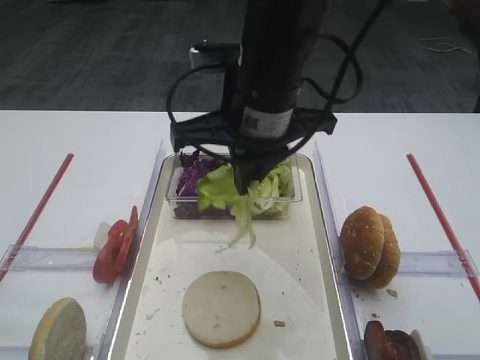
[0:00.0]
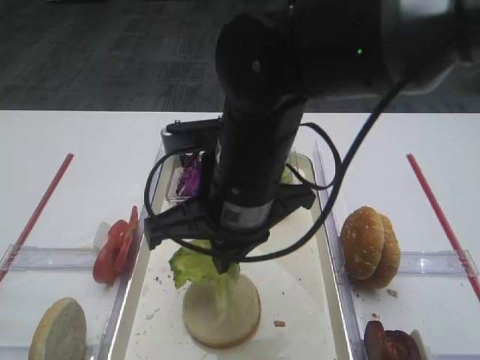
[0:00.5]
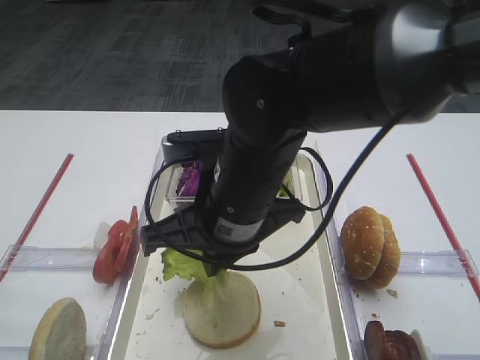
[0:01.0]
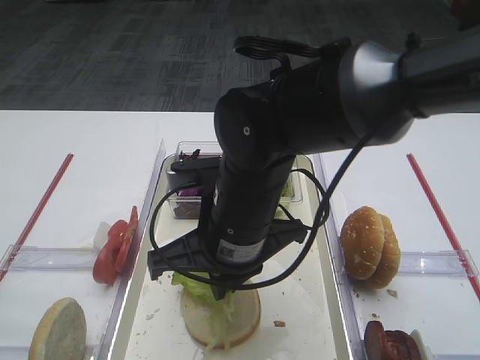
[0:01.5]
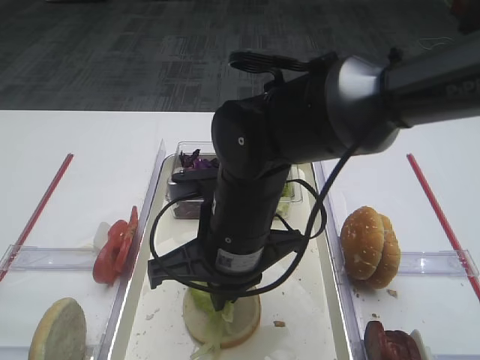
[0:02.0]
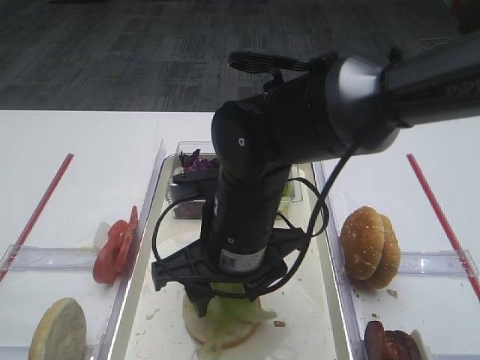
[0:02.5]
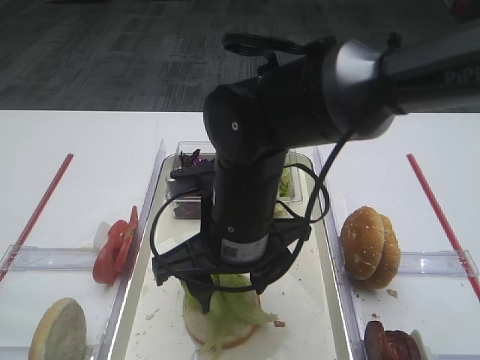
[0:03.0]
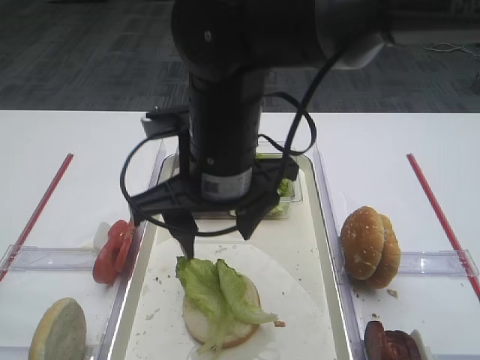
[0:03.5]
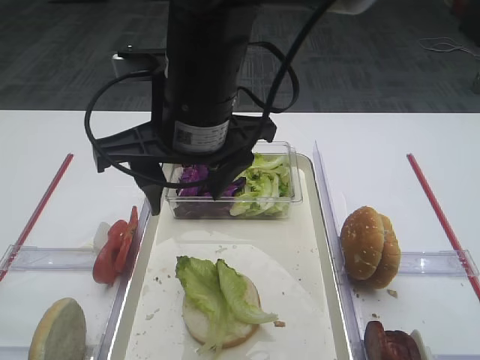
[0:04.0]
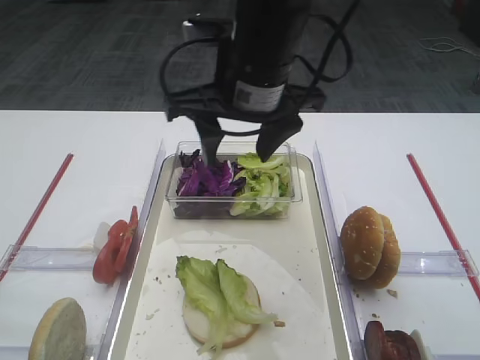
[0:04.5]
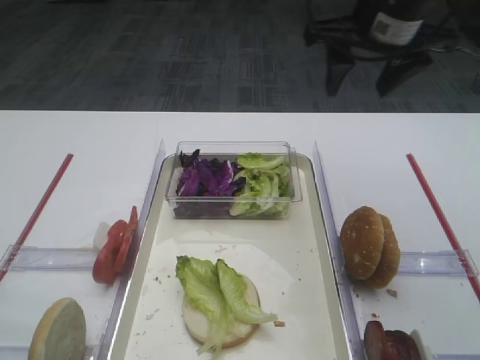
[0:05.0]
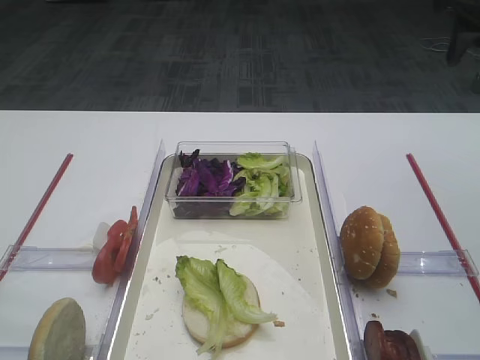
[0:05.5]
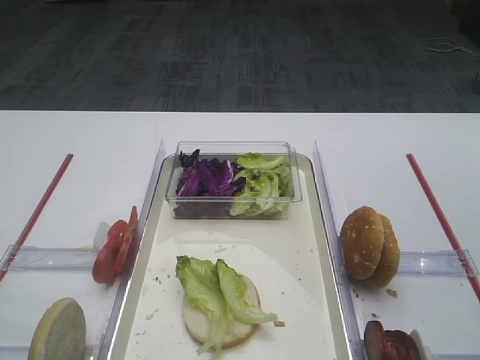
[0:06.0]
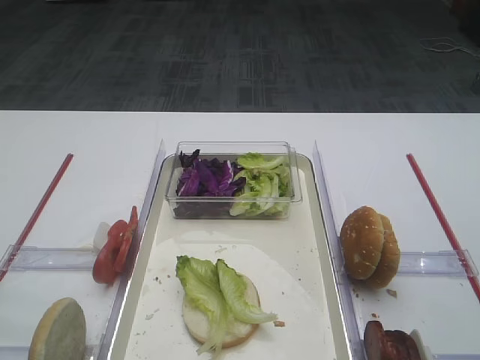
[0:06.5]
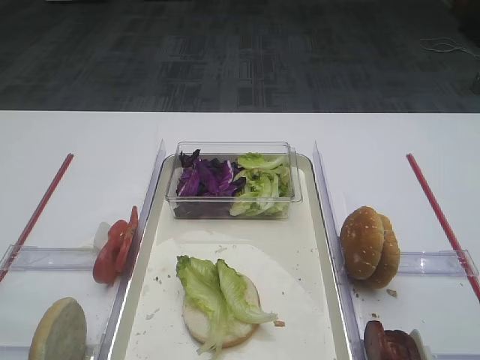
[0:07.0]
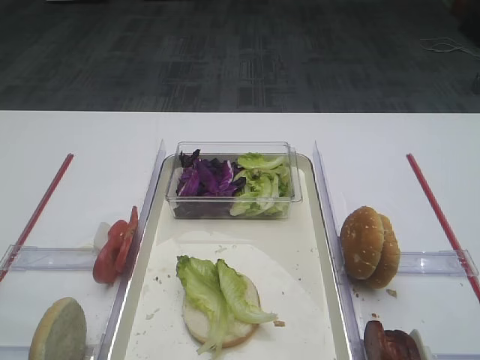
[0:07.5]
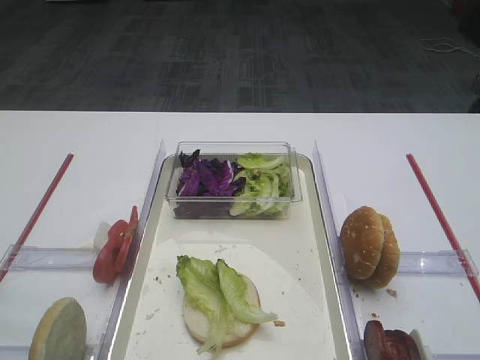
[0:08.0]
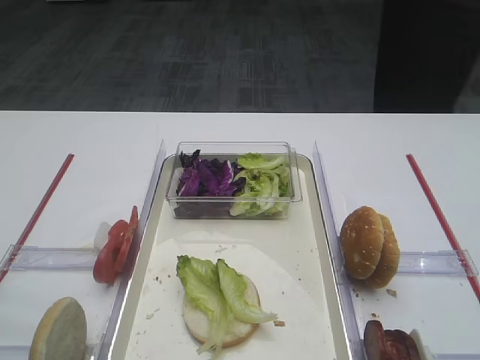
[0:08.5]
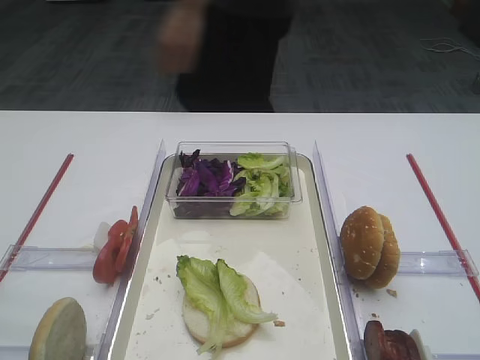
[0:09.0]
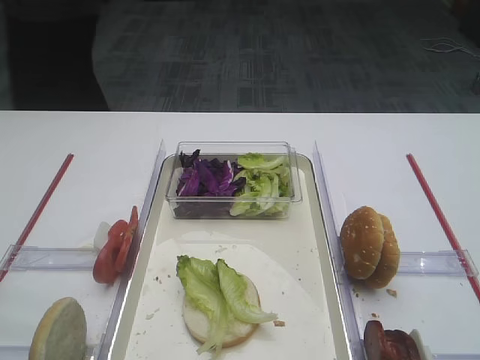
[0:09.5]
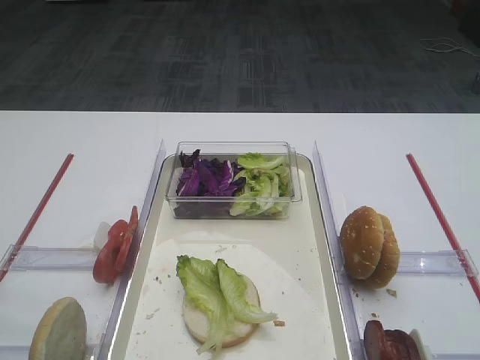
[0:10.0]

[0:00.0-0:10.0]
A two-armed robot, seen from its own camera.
Step, 0:00.0 to 0:03.5: Place the lettuce leaf on the bread slice with the right gripper.
0:00.0 to 0:02.0: The right gripper heads downward and backward, covering about 15 cm.
0:02.0 to 0:04.0: The right gripper is displaced upward by some 10 cm, and opens.
0:04.0 to 0:06.0: The right gripper is displaced to the right by roughly 35 cm.

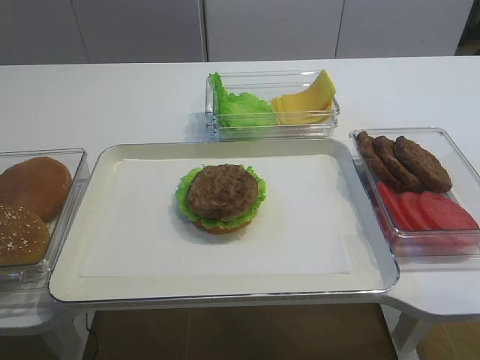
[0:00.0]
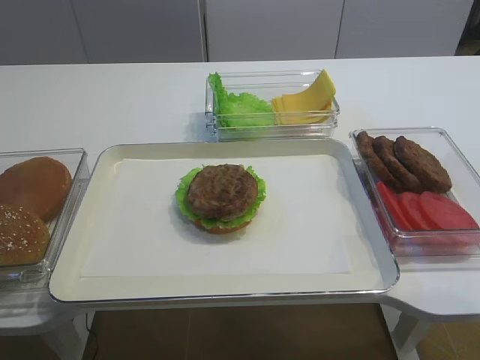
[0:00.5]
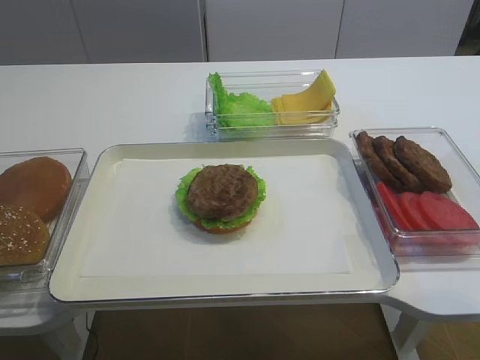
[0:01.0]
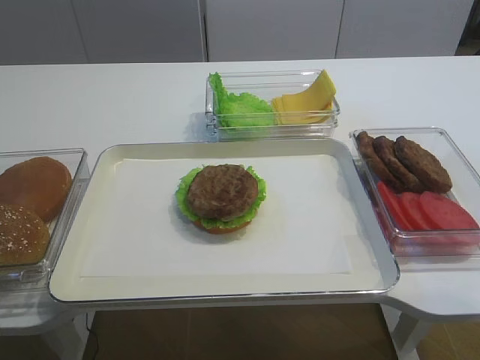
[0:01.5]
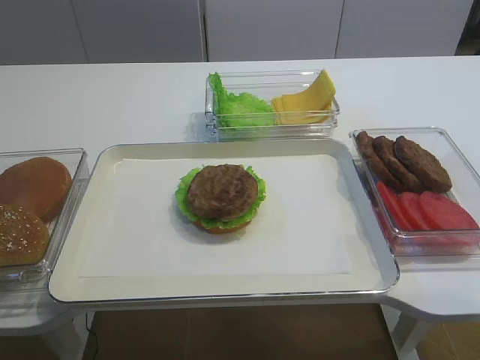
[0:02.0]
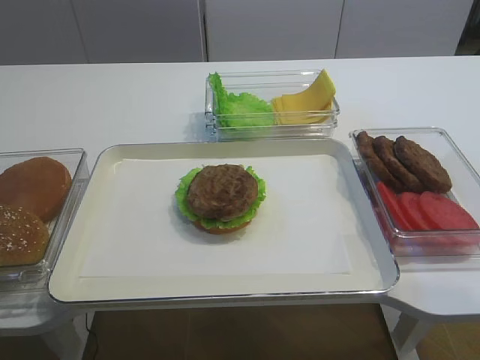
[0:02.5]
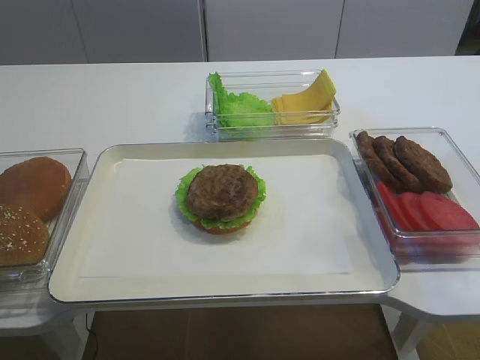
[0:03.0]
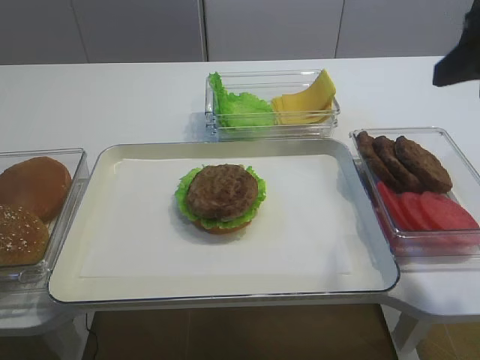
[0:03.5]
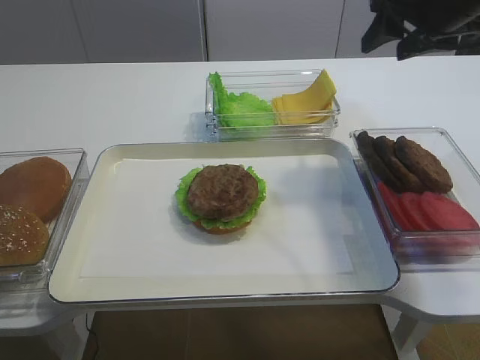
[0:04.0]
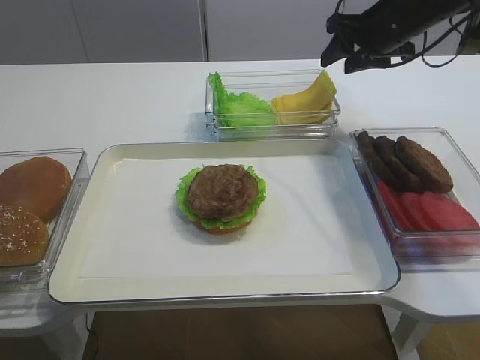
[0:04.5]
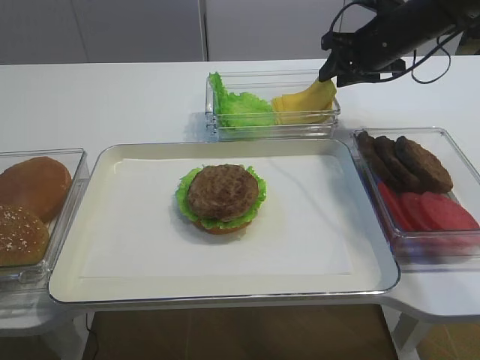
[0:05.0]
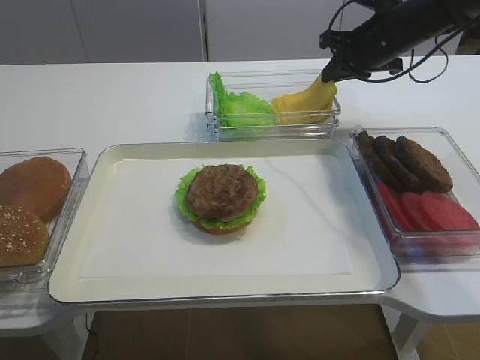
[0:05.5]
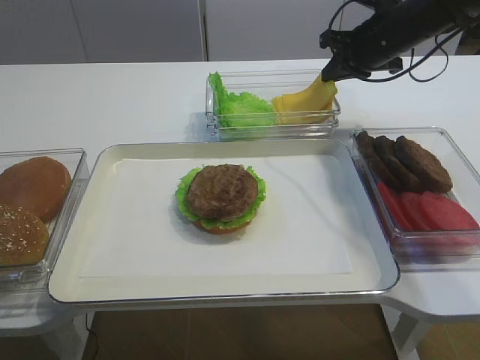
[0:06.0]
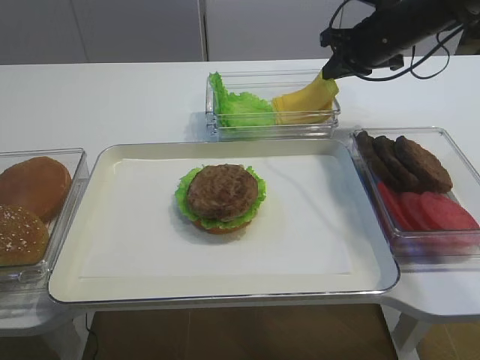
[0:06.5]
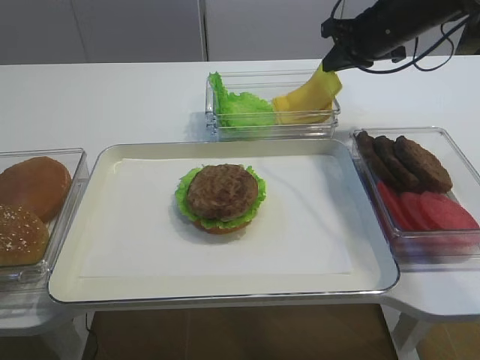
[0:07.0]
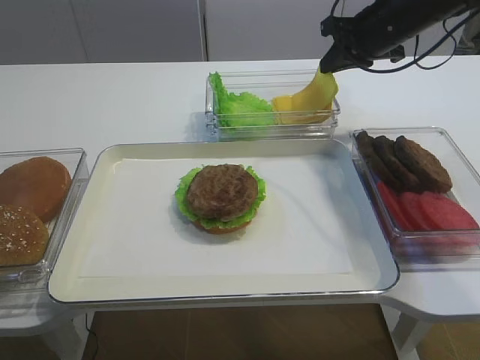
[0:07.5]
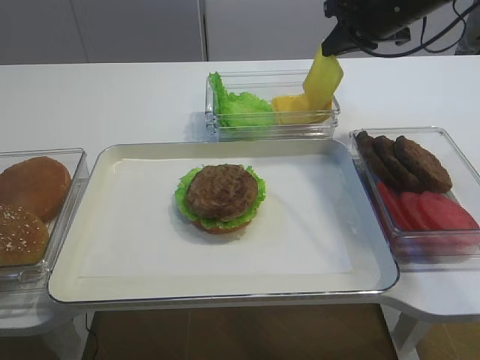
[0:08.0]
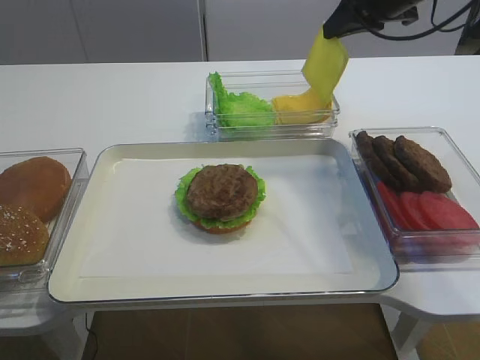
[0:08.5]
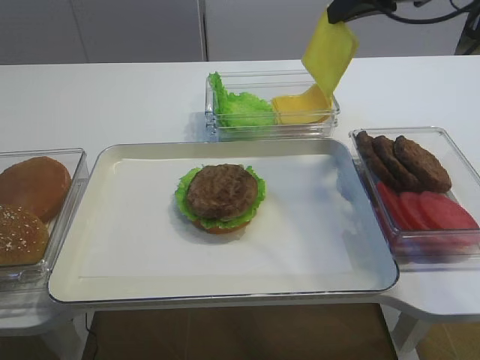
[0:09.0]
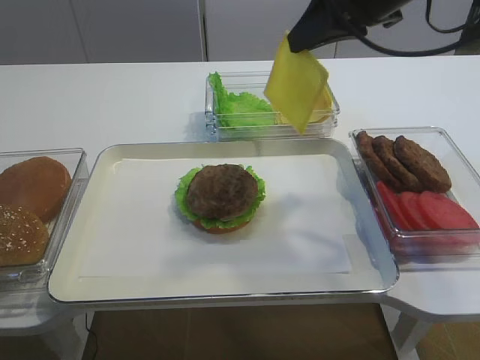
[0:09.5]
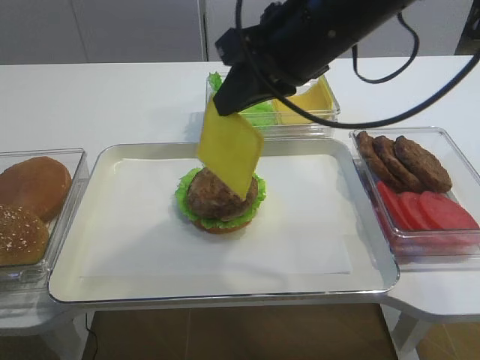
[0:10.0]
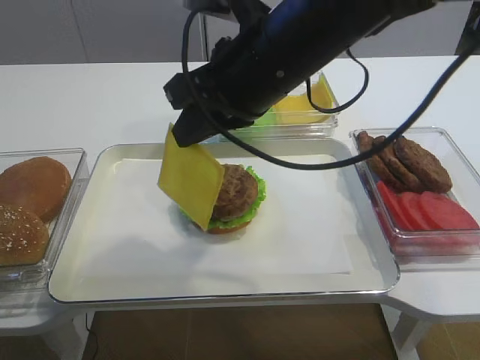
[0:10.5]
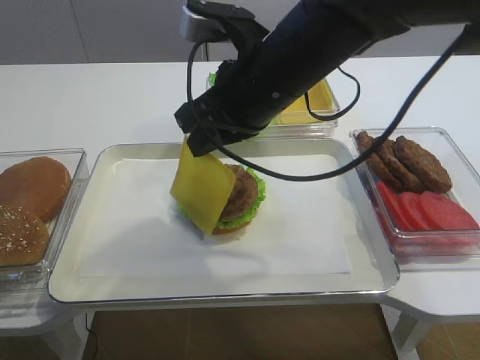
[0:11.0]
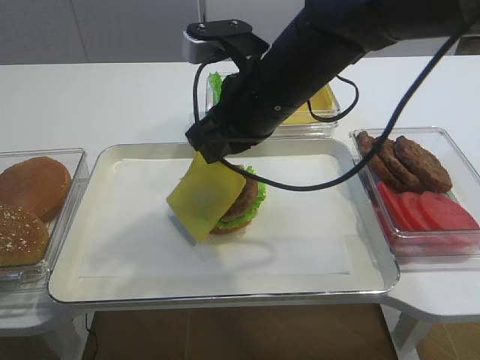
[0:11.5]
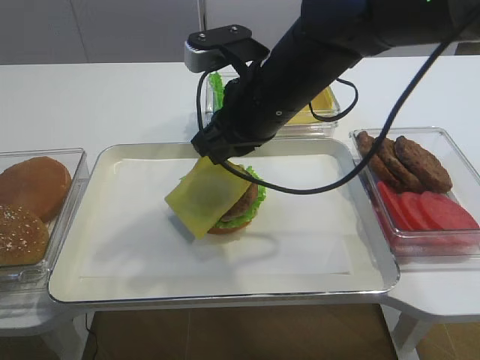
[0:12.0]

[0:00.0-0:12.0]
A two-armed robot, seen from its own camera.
Step, 0:00.0 to 0:08.0: Pick up the cheese slice with the right gripper.
0:02.0 to 0:04.0: The right gripper travels forward by approximately 40 cm.
0:04.0 to 0:06.0: The right gripper goes about 15 cm forward and downward, and closes up.
0:06.0 to 0:08.0: The right gripper shifts by some 5 cm.
0:08.0 to 0:10.0: The right gripper travels backward and to the left by some 20 cm.
0:10.0 to 0:12.0: The right gripper goes roughly 5 cm downward.

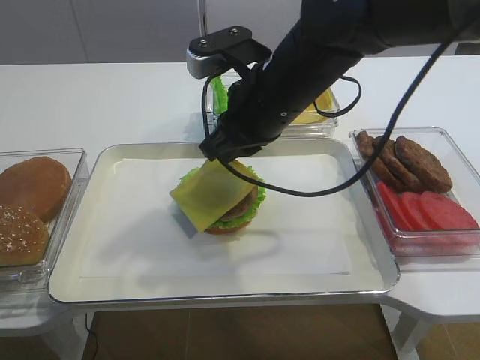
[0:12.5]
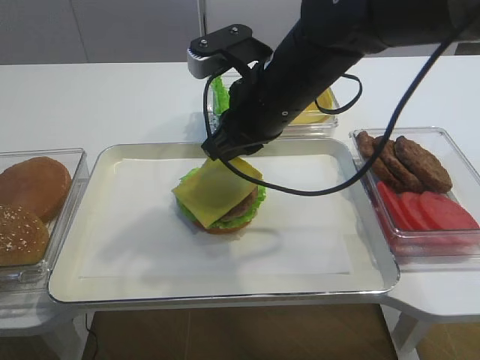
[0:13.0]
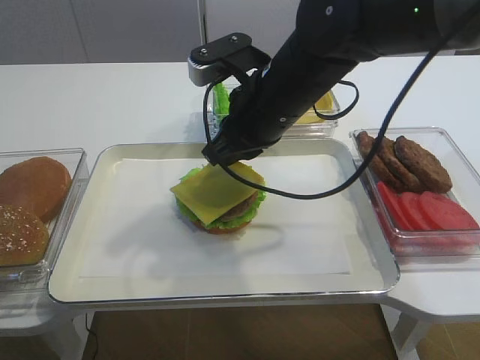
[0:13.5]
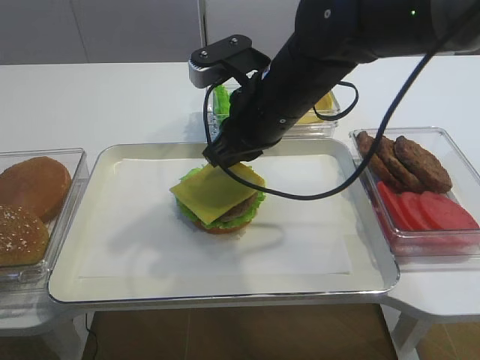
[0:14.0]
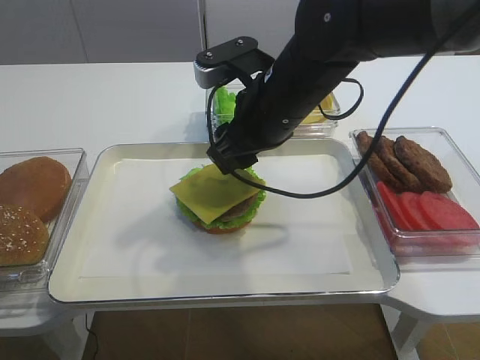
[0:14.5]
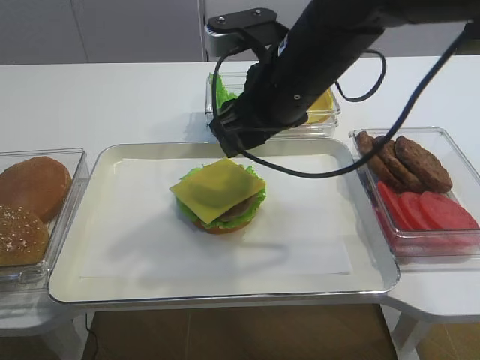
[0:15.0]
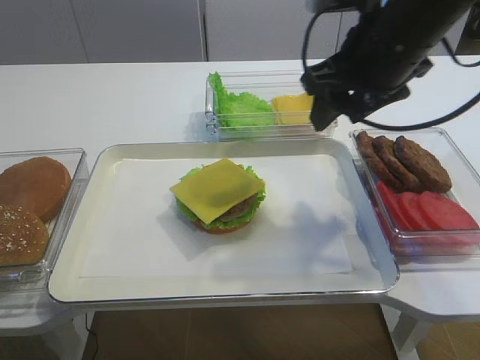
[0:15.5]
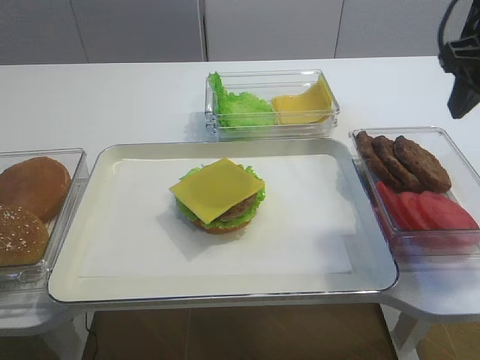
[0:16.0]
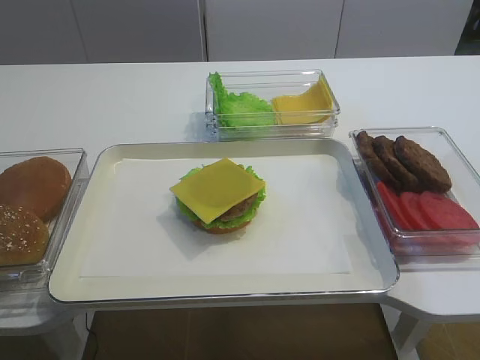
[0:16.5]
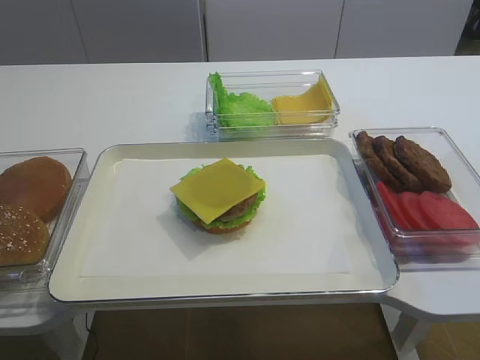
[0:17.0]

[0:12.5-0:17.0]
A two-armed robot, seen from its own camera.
Step, 0:12.5 to 0:14.5: Place the cheese slice on the cutlet with the right gripper.
0:12.5 to 0:14.5: The right gripper opens up.
0:14.5 to 0:17.0: The right gripper is displaced backward and to the right by some 35 cm.
